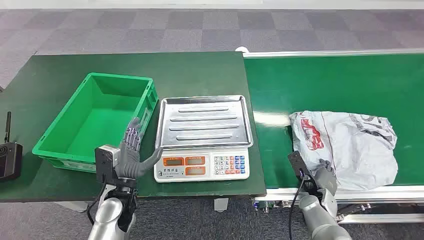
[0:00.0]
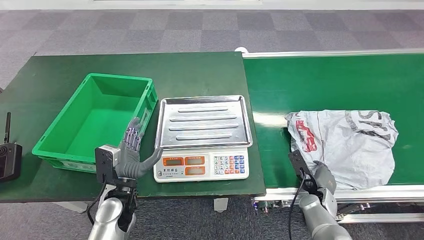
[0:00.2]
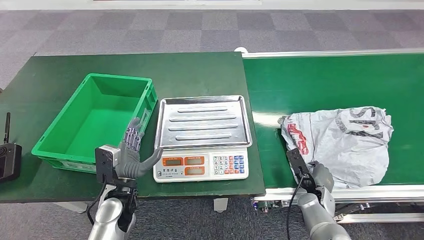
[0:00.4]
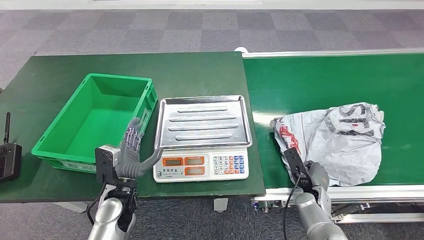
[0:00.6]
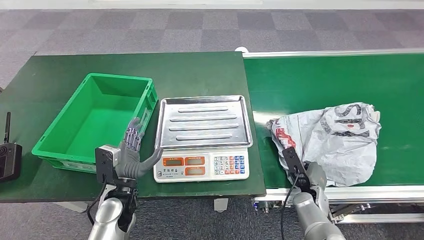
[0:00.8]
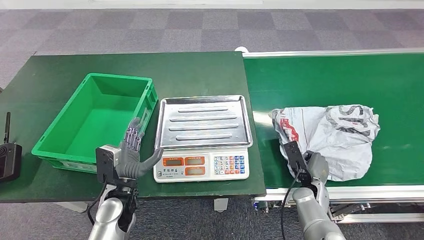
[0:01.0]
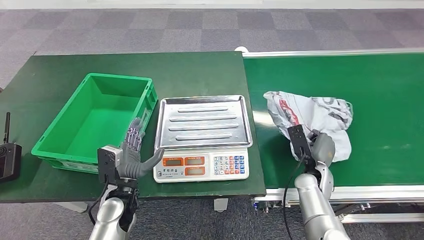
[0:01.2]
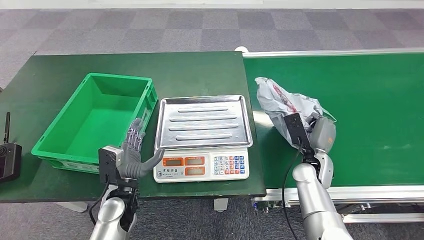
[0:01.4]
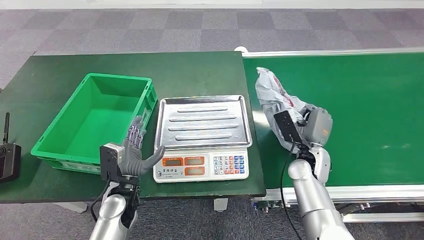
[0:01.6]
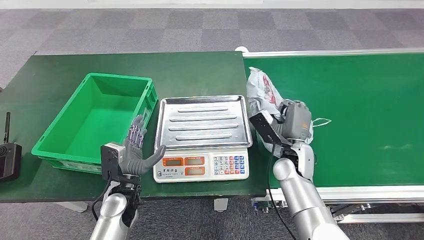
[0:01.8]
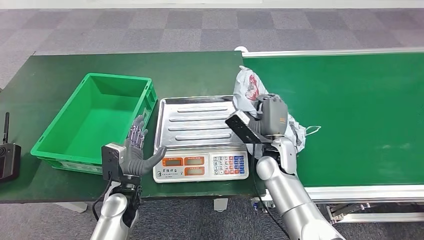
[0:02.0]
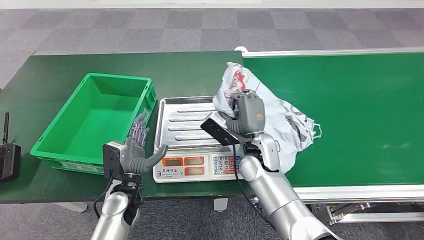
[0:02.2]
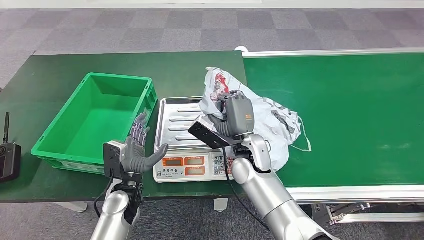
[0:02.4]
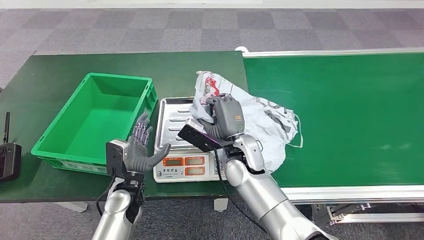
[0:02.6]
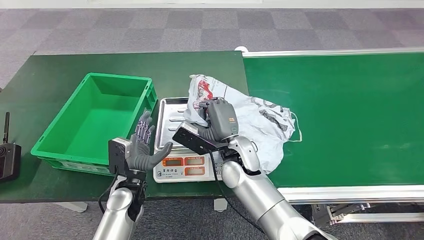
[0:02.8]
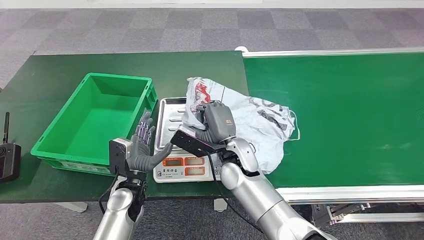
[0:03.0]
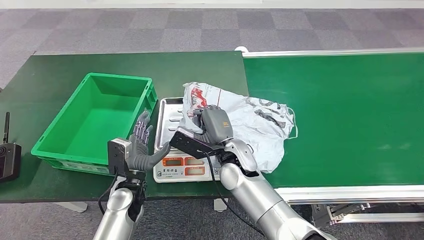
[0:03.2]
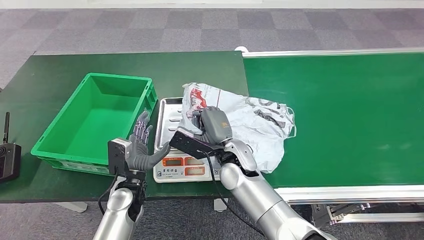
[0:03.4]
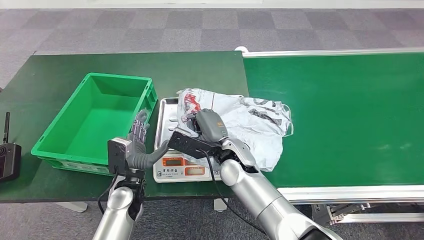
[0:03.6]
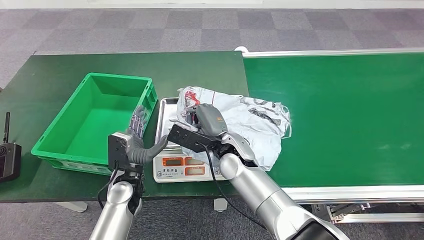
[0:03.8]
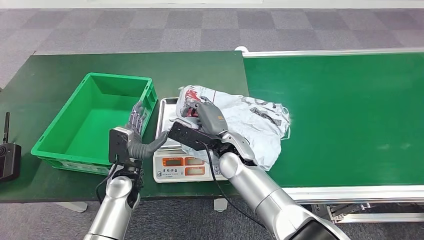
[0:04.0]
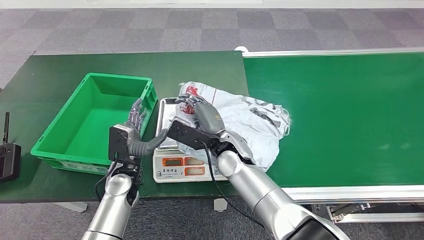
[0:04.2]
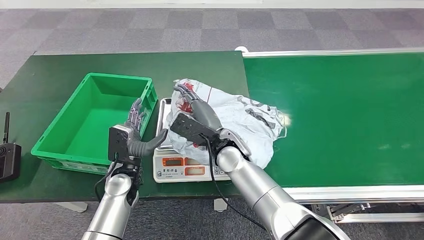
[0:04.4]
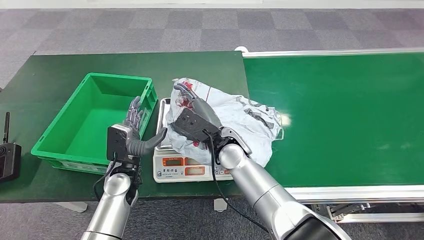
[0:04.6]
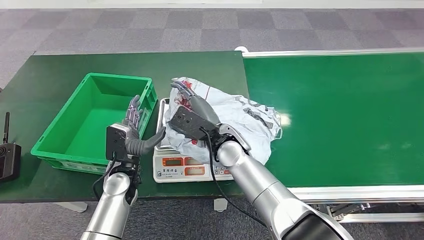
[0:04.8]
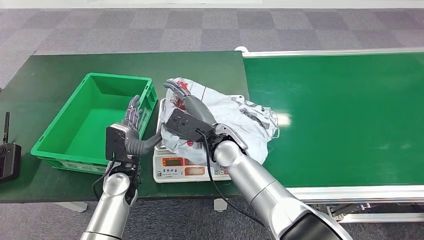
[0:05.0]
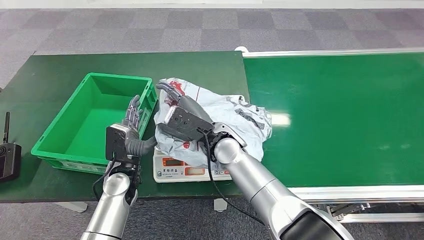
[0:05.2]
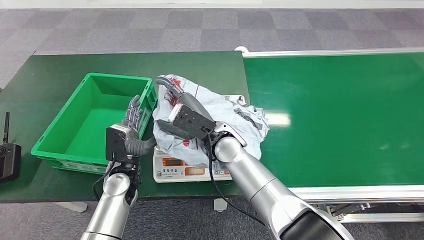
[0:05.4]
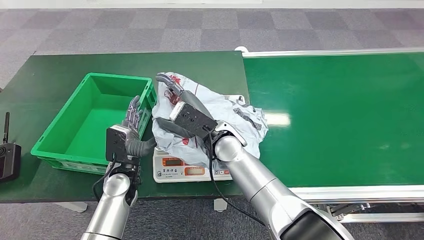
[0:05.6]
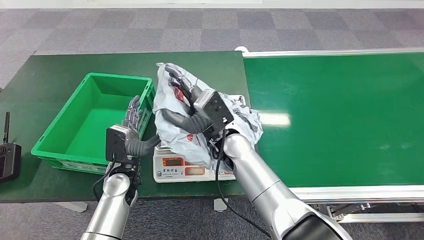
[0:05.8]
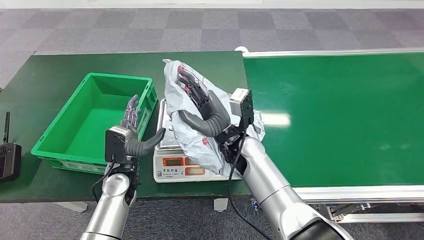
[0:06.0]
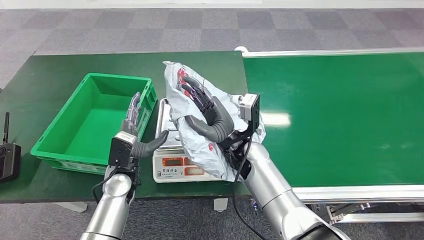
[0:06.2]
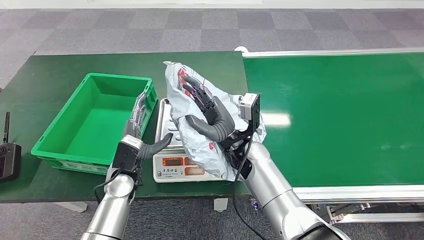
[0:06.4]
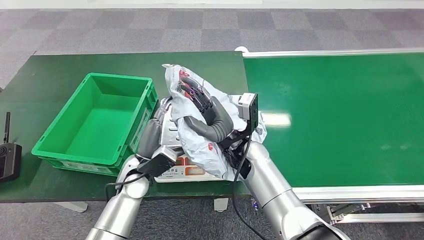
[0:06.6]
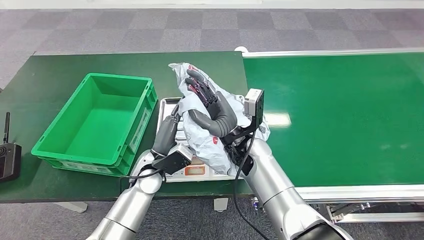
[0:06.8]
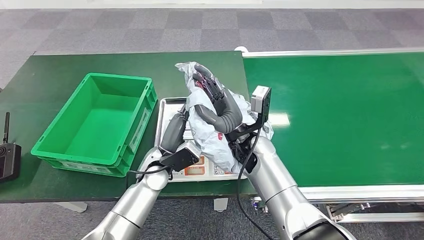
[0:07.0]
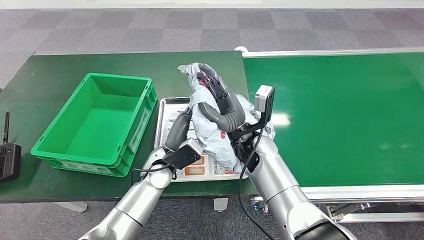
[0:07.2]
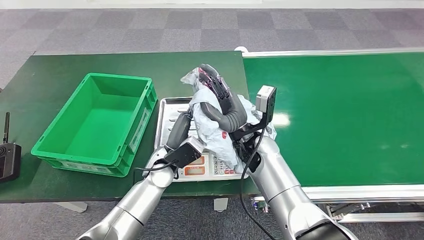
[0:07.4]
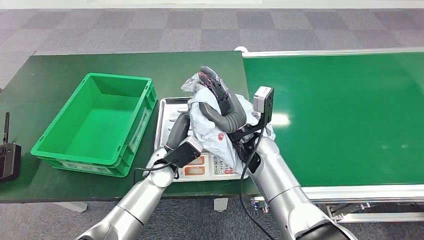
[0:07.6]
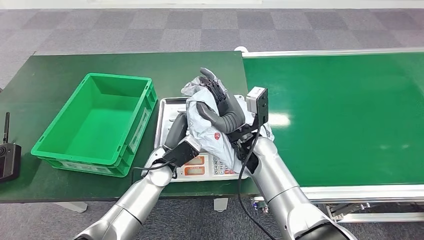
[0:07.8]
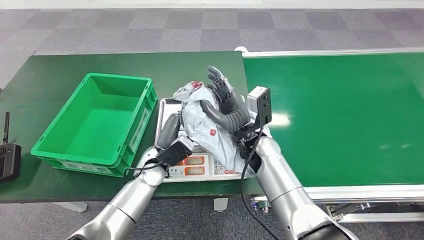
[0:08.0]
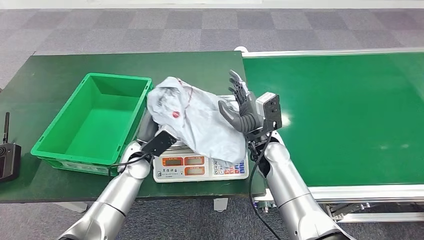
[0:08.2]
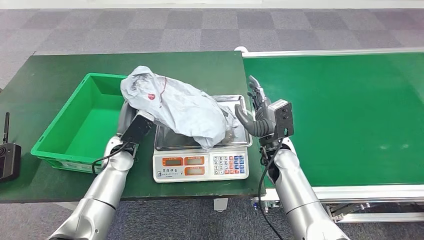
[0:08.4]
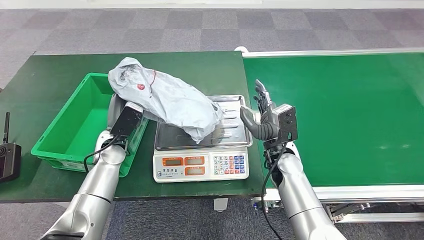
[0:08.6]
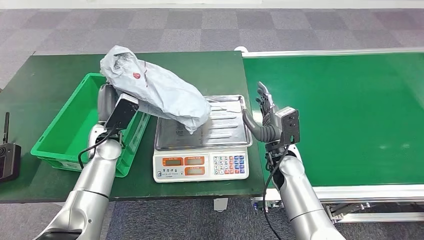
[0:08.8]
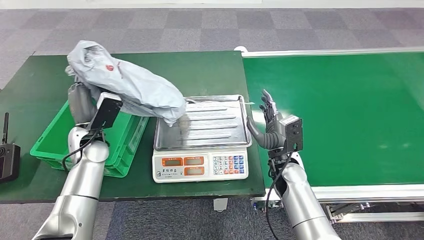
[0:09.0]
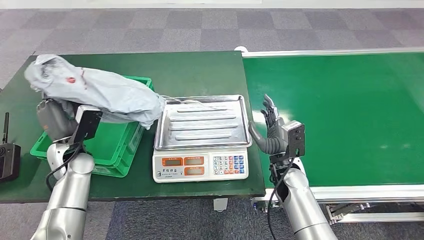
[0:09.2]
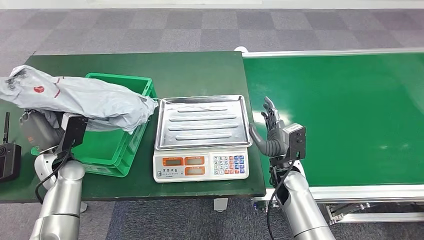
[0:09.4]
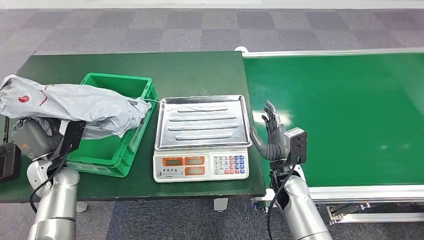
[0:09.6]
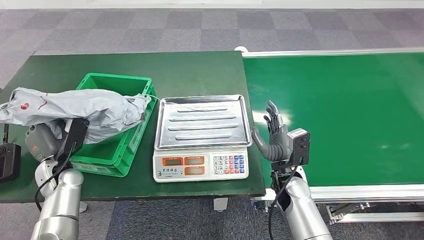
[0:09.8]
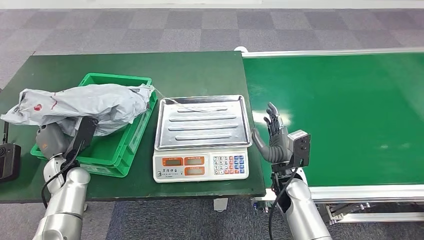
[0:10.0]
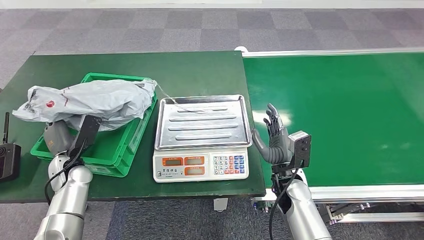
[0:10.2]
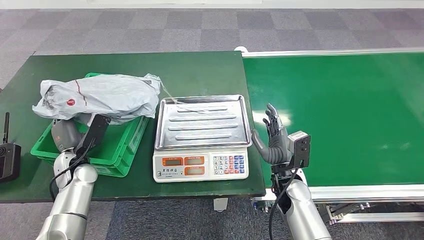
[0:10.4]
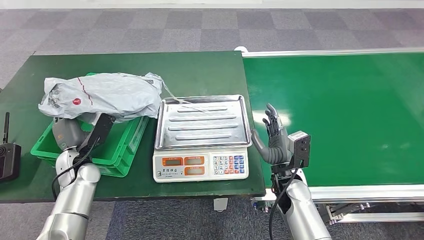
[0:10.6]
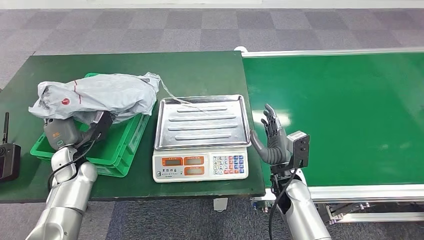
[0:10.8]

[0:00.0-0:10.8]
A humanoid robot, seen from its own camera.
Step, 0:00.0 to 0:01.8: Pick up the package from the conveyor belt.
Step, 0:02.6 to 0:04.6: Place the package onto the inbound machine.
Step, 0:06.4 to 0:09.2: Pick up the package from the inbound machine.
0:06.2 to 0:07.8: The left hand heads to the right, covering roughly 10 cm.

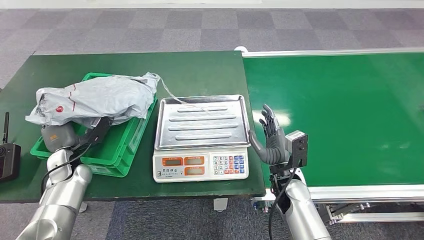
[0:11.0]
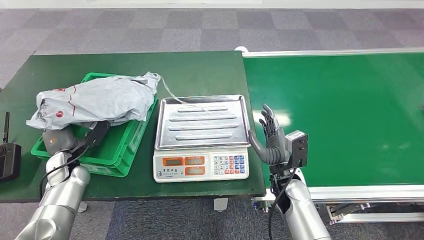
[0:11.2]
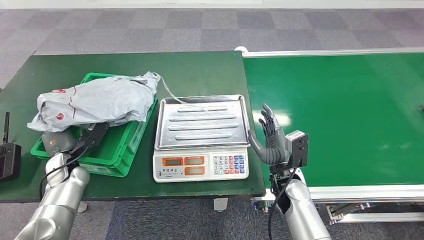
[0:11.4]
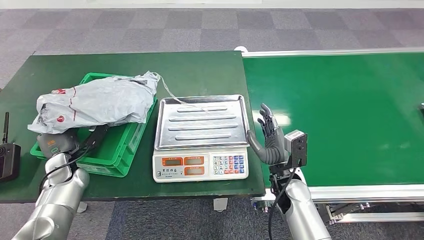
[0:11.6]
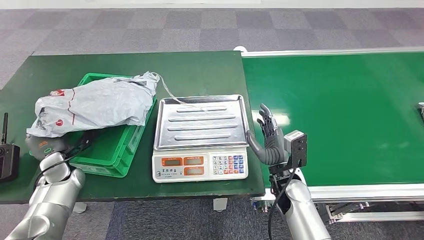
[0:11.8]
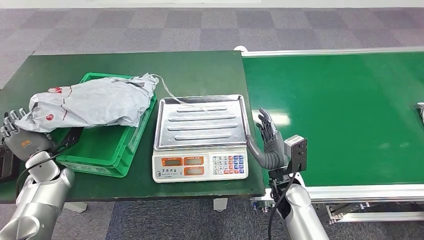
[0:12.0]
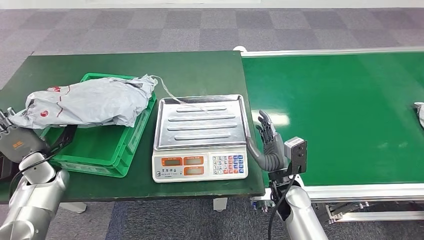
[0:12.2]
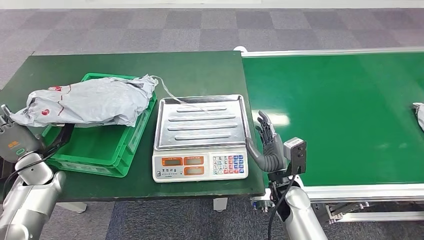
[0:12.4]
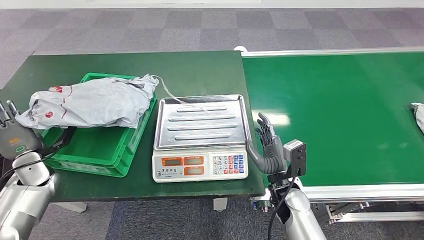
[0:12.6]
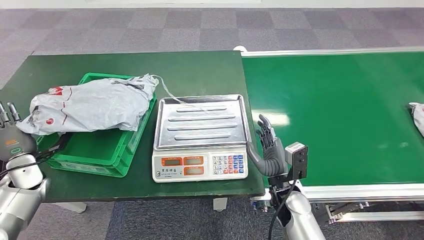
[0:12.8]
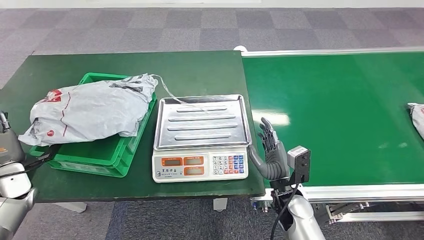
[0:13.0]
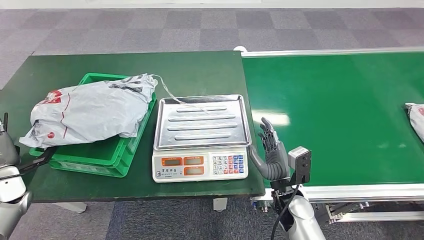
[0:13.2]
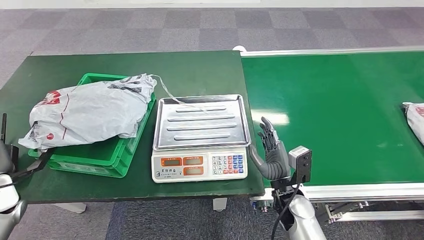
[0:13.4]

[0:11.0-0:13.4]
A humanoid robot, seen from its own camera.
Step, 0:11.0 to 0:13.4: Place the package into the parcel locker.
0:11.0 to 0:12.2: The left hand is displaced to the left by approximately 5 cm.
0:12.2 to 0:13.4: The left hand travels to the left and backward by roughly 10 cm.

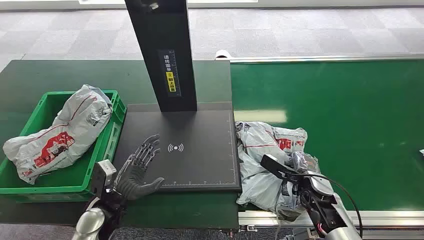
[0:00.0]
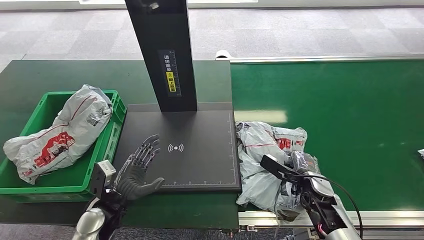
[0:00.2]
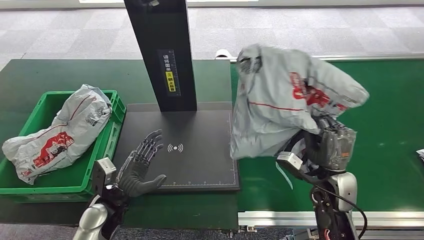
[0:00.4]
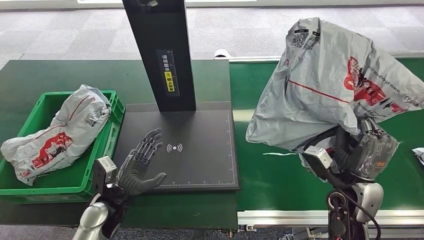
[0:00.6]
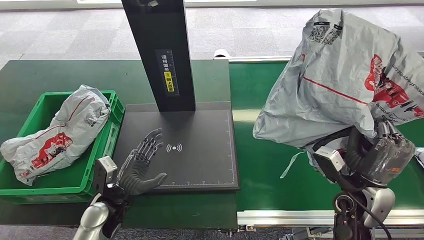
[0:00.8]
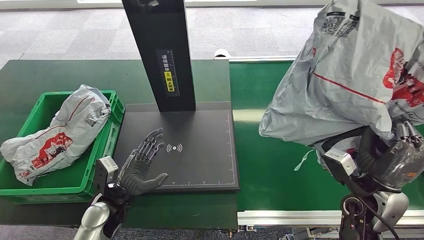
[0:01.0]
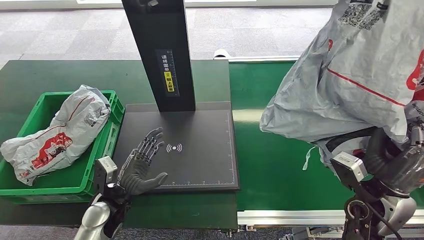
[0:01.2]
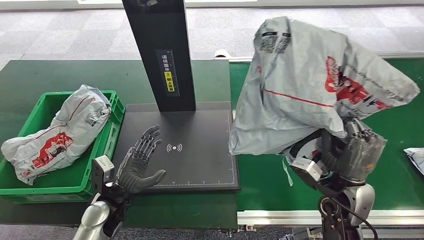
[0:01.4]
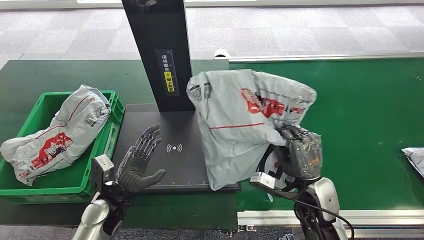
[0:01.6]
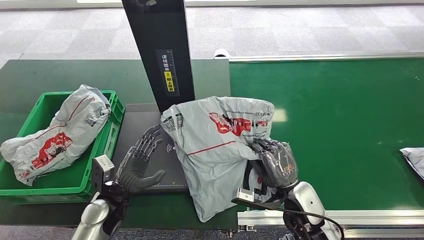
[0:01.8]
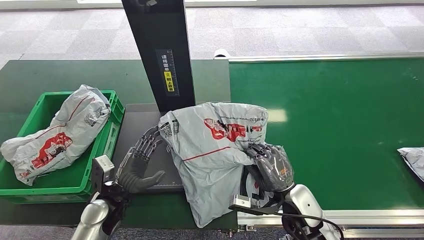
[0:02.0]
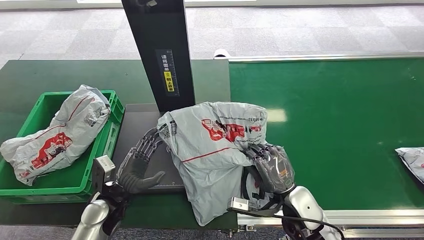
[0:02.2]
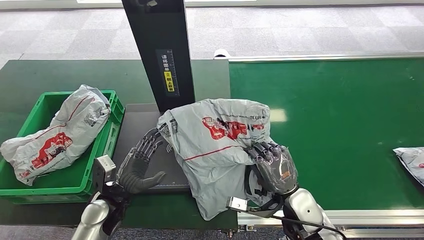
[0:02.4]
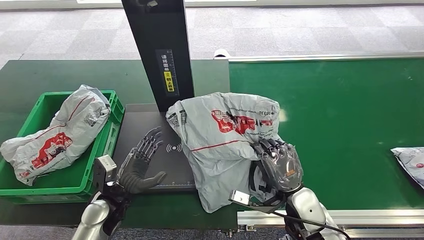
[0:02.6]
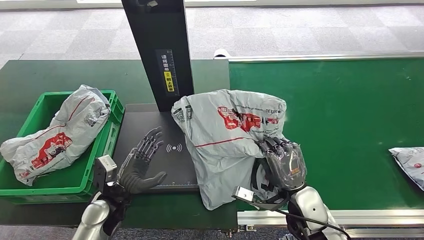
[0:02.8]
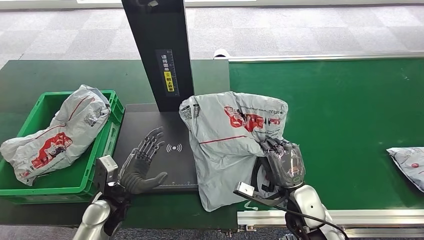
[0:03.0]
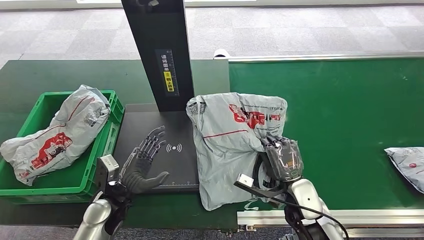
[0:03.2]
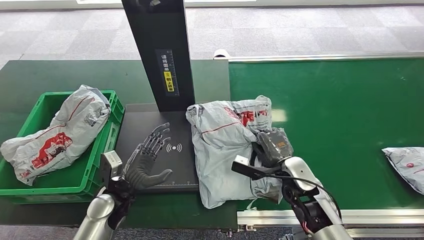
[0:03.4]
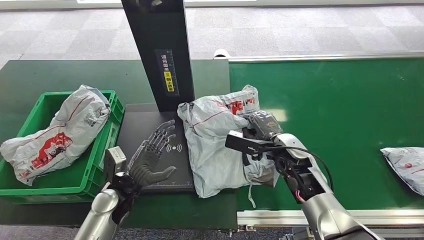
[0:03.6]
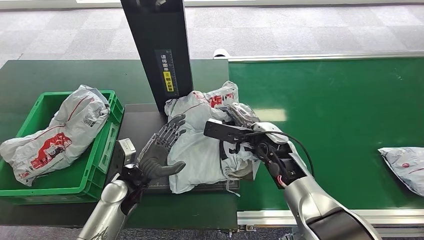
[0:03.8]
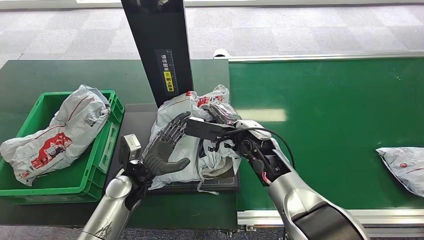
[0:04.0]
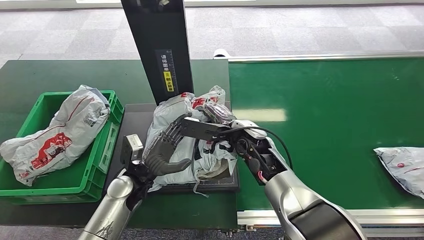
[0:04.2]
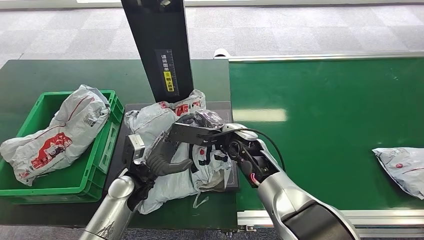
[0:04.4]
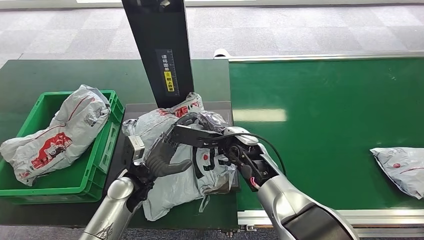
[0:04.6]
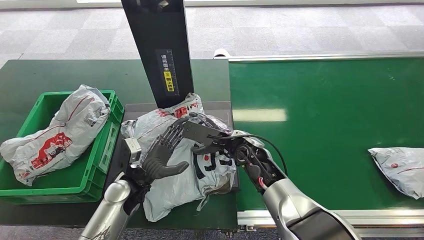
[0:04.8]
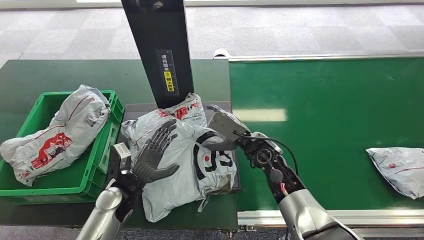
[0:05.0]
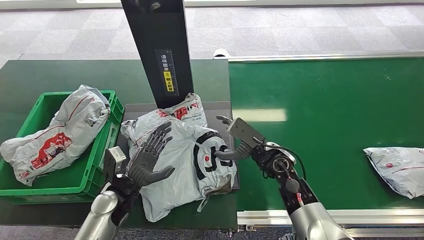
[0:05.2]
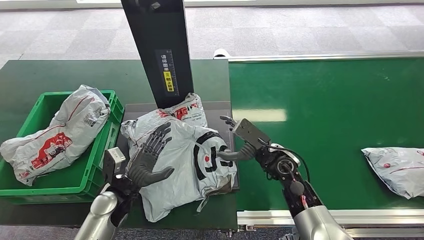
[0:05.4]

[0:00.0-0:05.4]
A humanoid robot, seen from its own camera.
Step, 0:00.0 to 0:01.8: Pick up the package from the conveyor belt.
0:02.8 to 0:04.0: The right hand goes about 20 cm forward, to the left and upward, while the left hand travels forward by some 5 cm.
0:04.0 to 0:05.4: The right hand heads to the right and downward, covering approximately 10 cm, while the left hand changes place by roughly 5 cm.
